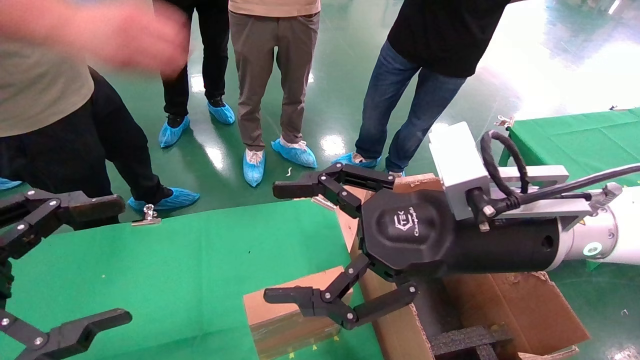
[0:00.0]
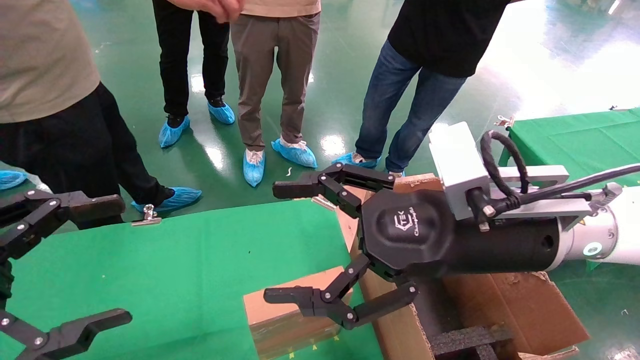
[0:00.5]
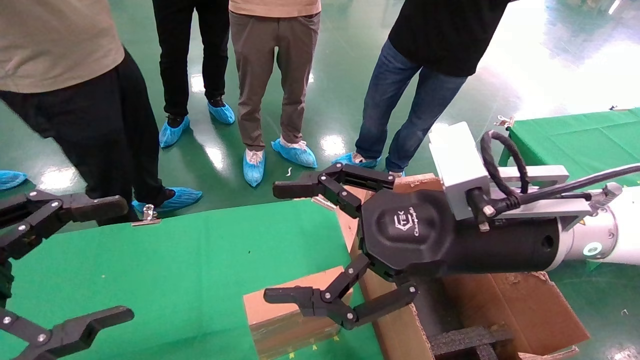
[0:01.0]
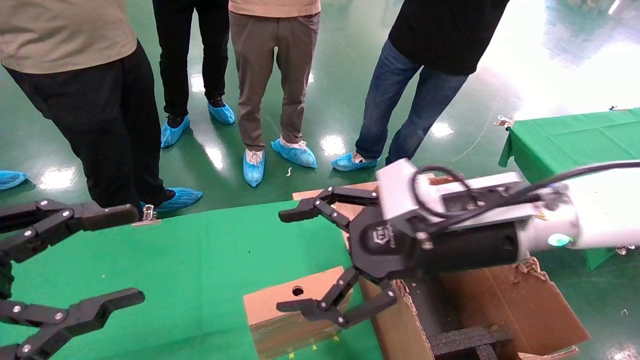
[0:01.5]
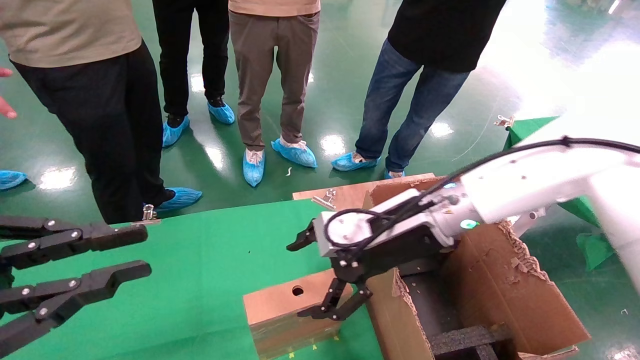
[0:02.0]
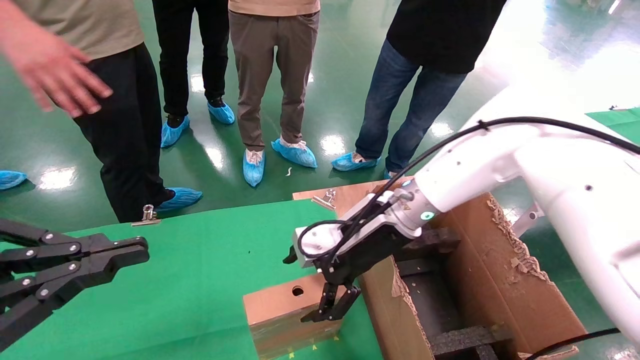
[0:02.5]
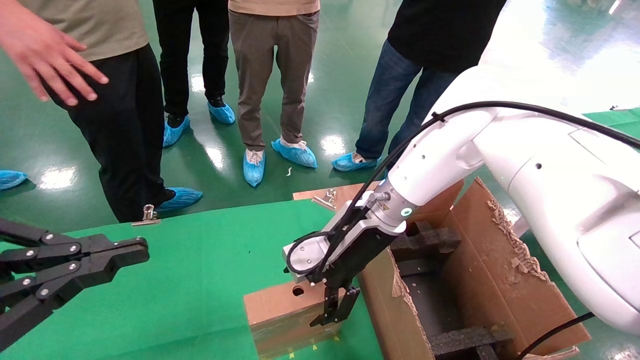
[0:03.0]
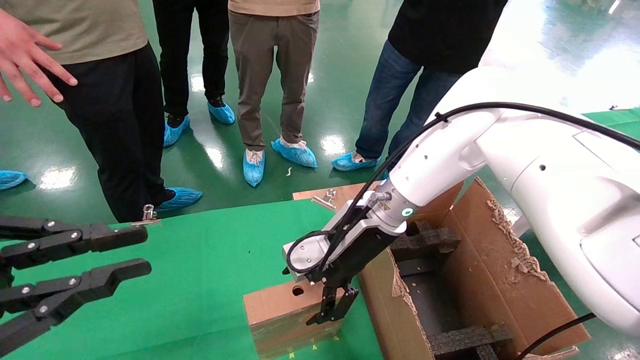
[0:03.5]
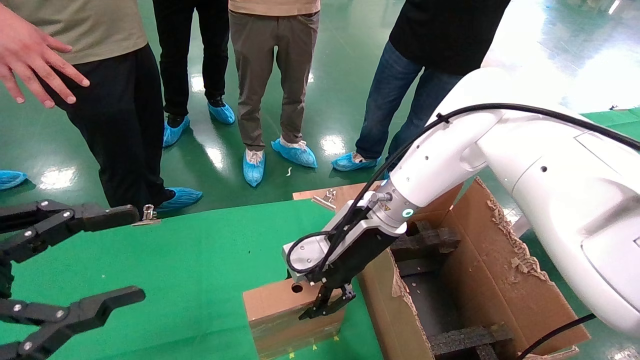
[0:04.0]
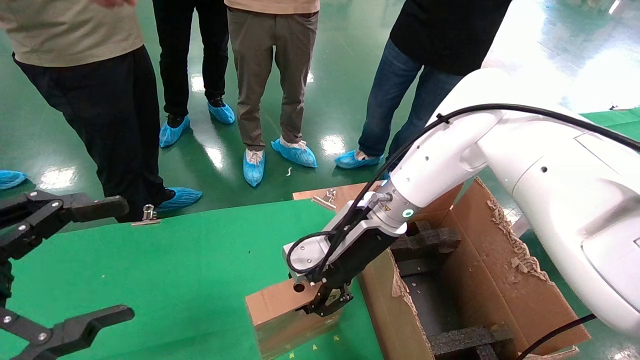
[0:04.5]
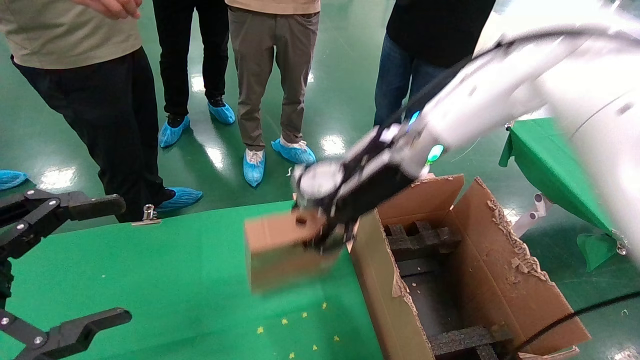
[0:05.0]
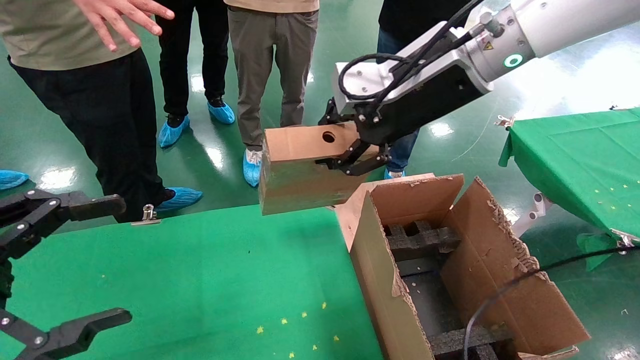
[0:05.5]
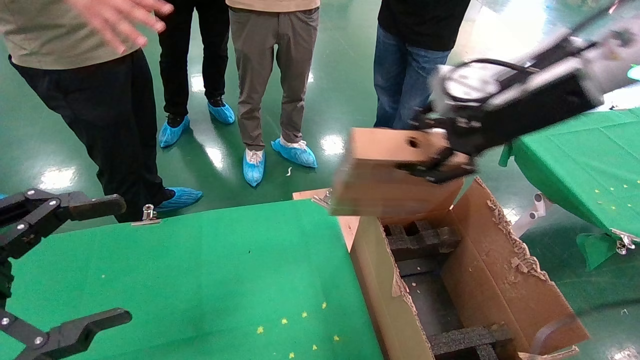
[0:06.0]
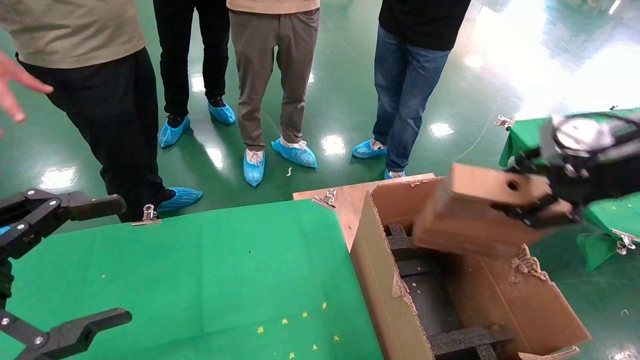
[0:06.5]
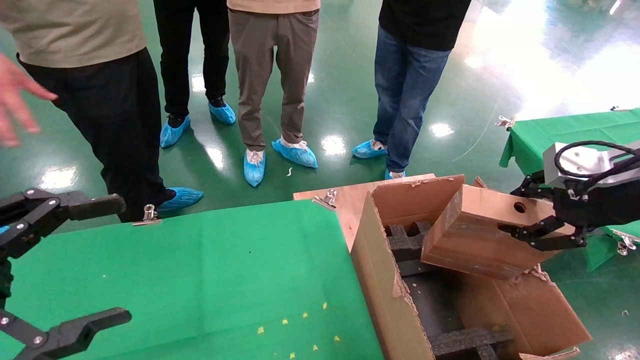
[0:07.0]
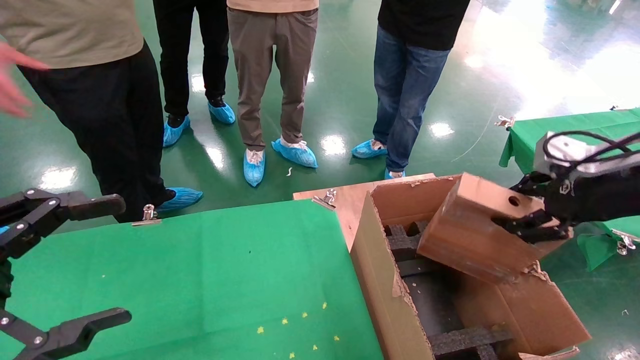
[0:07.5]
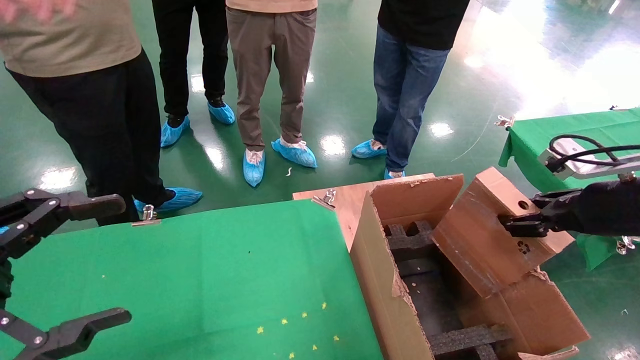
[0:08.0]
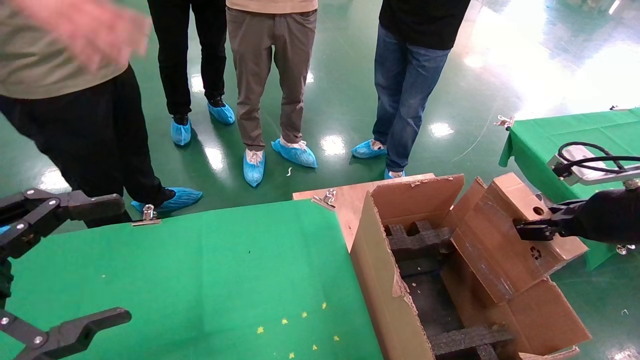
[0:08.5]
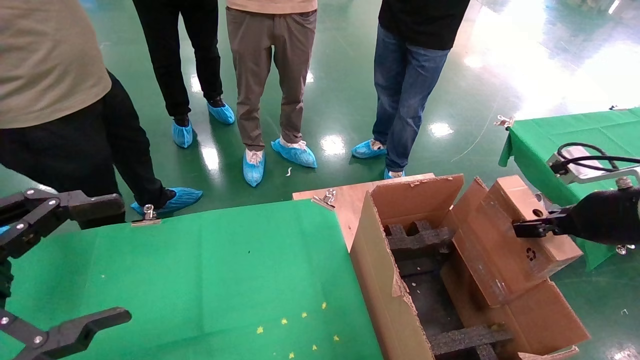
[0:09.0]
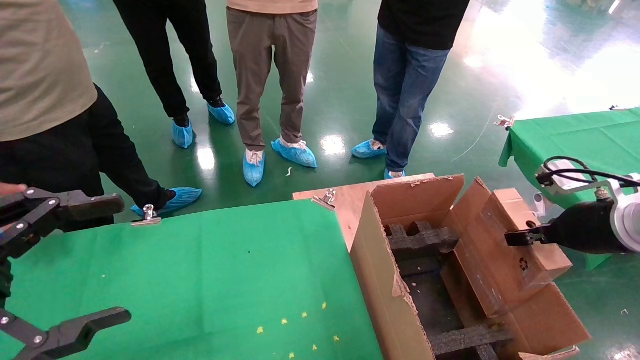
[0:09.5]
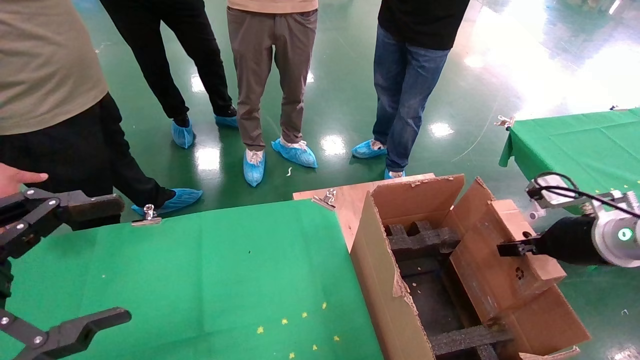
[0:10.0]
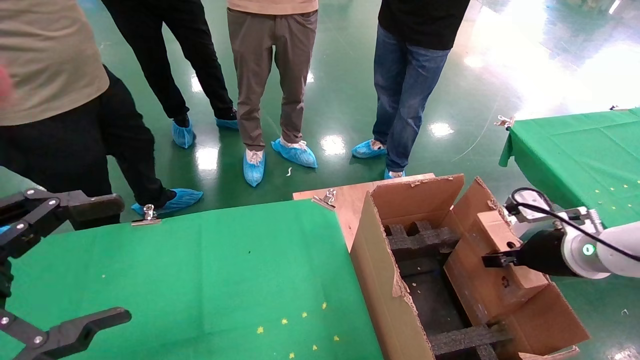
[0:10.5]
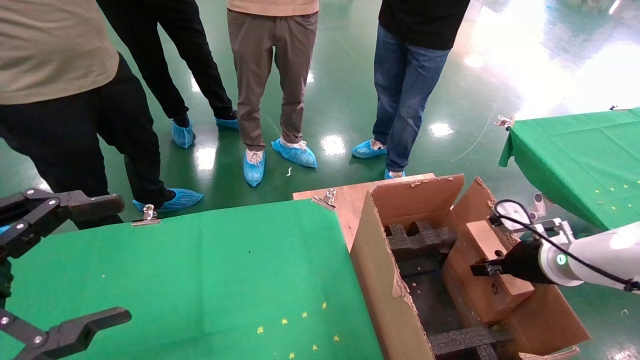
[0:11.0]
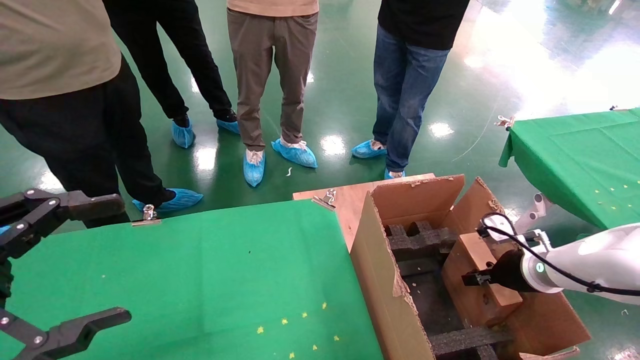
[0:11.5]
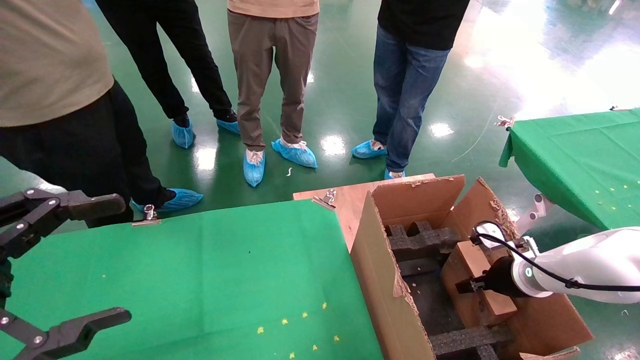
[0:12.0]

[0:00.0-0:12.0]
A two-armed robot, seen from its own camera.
Task of the whole recording: using a robotic arm to pick up a cardboard box and palace it the carton.
Step, 0:01.5 to 0:04.0: Pick up the mouse and the power cord paper box.
0:00.0 to 0:02.0: The right gripper shifts roughly 10 cm forward. Meanwhile the left gripper closes its fingers.
0:02.0 to 0:04.0: The right gripper goes roughly 5 cm forward, and closes up.
0:04.0 to 0:06.0: The right gripper is displaced upward, to the right and backward by some 25 cm, and closes up; the left gripper opens its fingers.
0:06.0 to 0:08.0: The right gripper is displaced downward and to the right by some 20 cm.
0:08.0 to 0:10.0: The right gripper heads downward, covering some 5 cm.
0:10.0 to 0:12.0: The right gripper goes about 15 cm downward and forward.

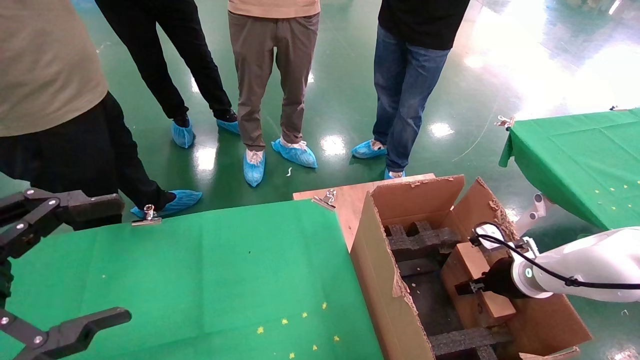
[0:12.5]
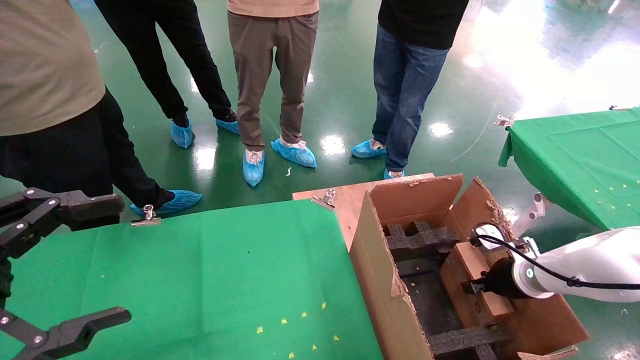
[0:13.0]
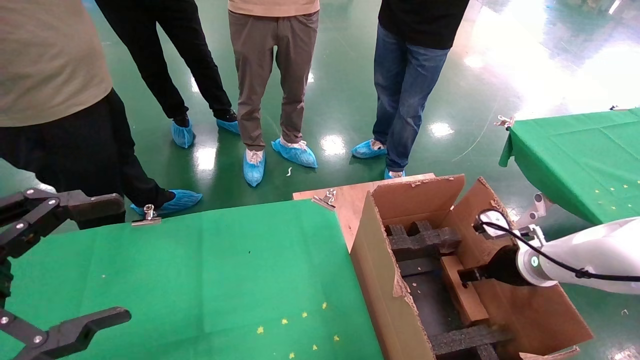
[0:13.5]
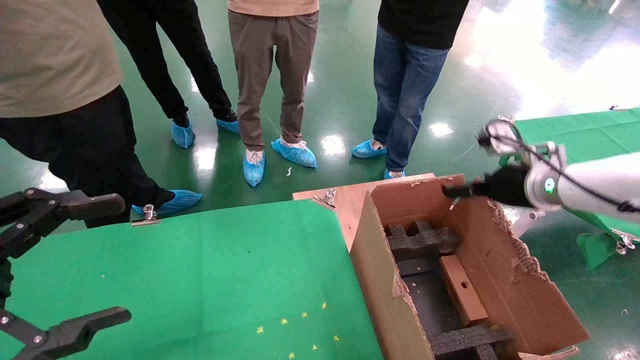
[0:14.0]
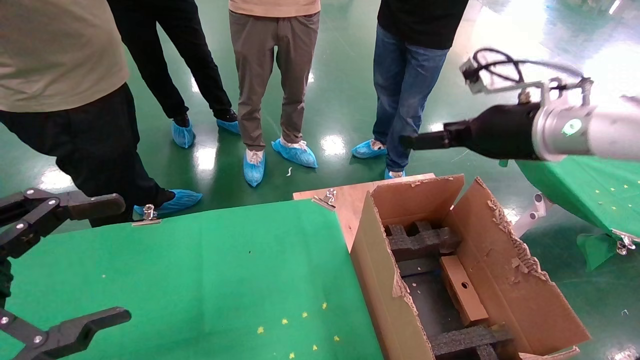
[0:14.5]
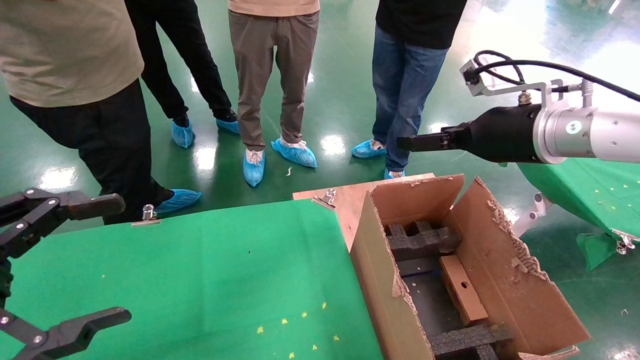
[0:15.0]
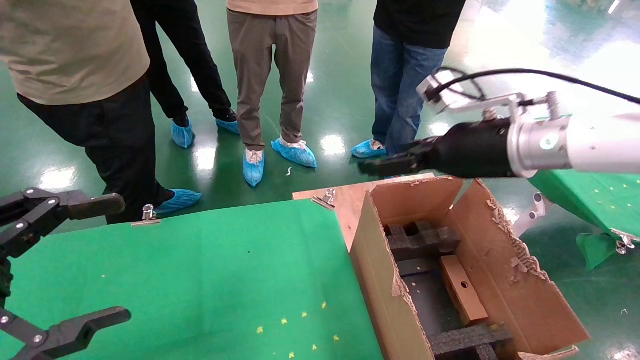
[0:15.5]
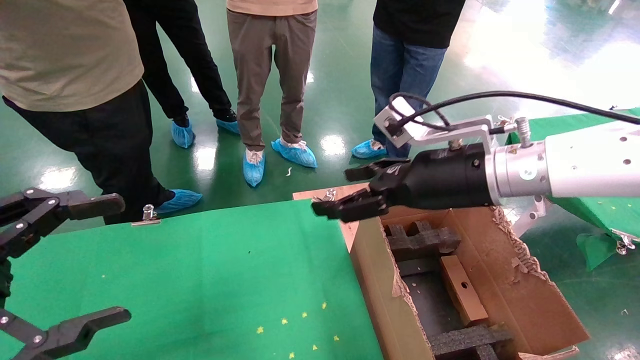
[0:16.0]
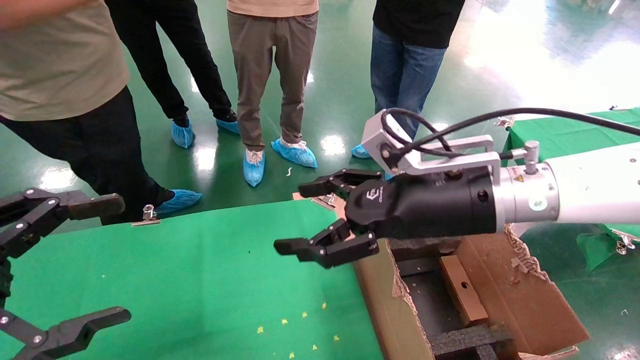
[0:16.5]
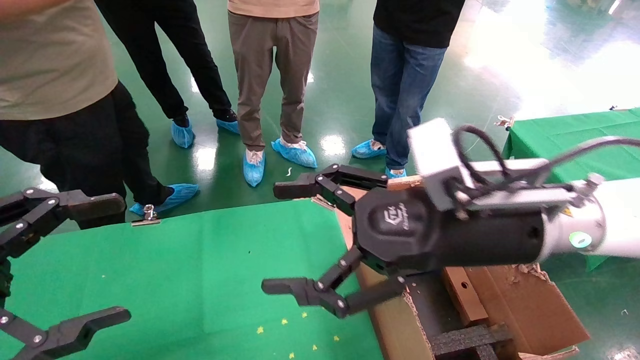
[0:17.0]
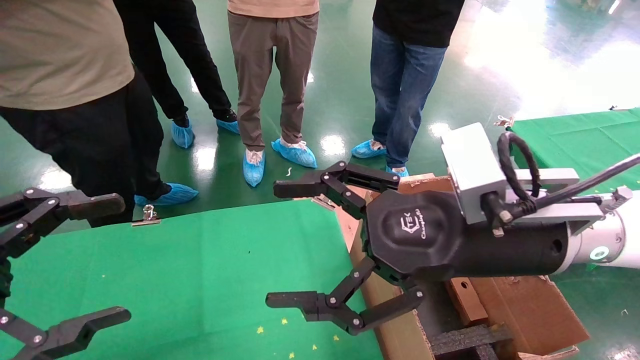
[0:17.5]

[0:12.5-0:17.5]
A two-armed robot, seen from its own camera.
Task of the whole recording: using a robotic arm to pick up a cardboard box and palace it the carton.
0:12.5 to 0:15.0: The right gripper moves upward, roughly 25 cm, and opens its fingers.
0:15.0 to 0:17.5: The right gripper heads to the left, backward and downward, covering about 15 cm.
